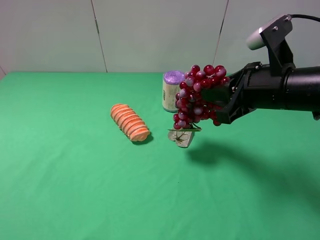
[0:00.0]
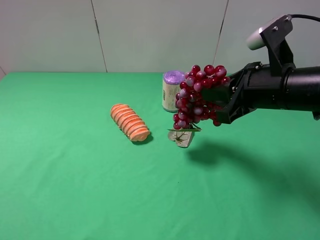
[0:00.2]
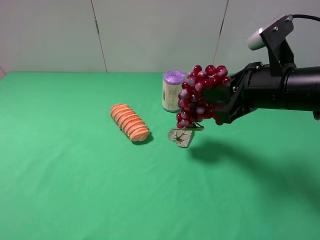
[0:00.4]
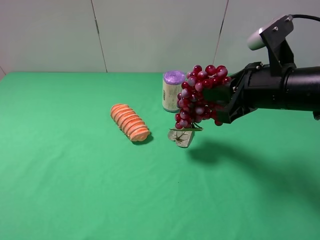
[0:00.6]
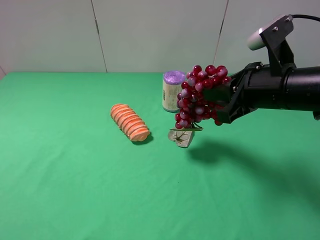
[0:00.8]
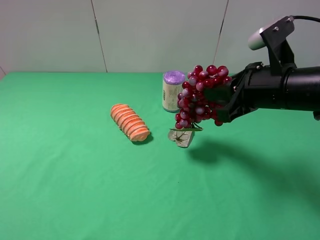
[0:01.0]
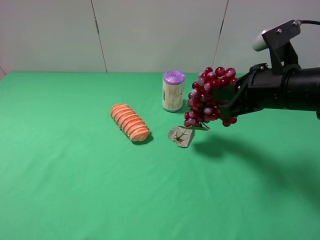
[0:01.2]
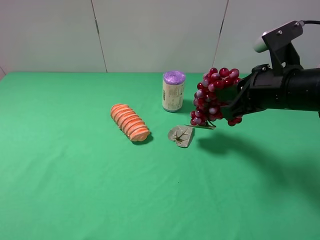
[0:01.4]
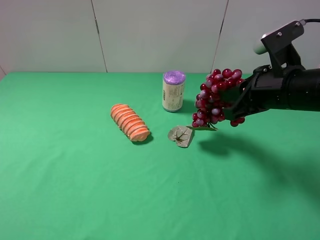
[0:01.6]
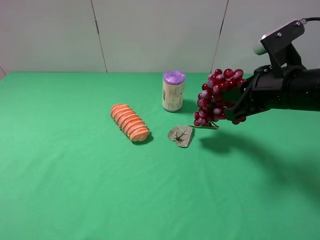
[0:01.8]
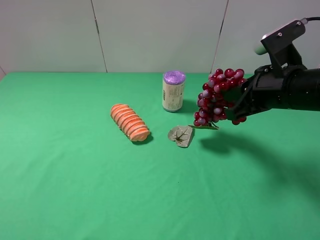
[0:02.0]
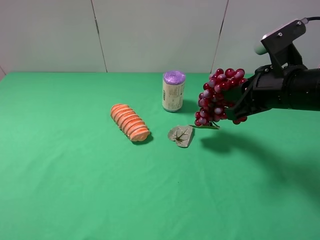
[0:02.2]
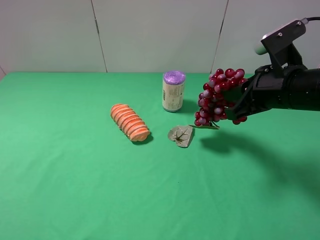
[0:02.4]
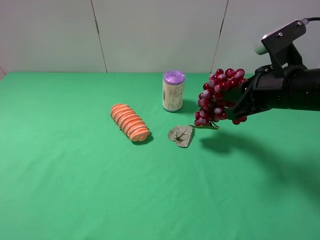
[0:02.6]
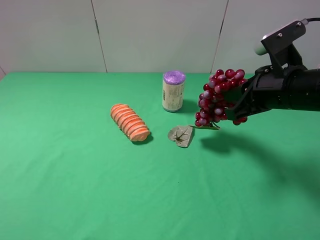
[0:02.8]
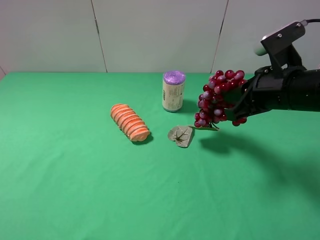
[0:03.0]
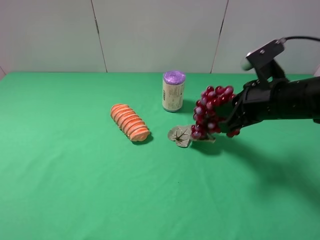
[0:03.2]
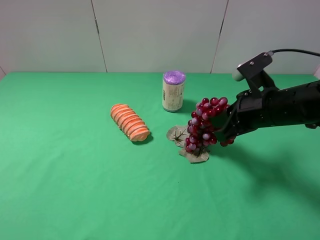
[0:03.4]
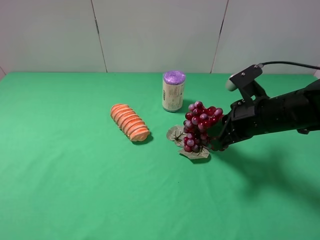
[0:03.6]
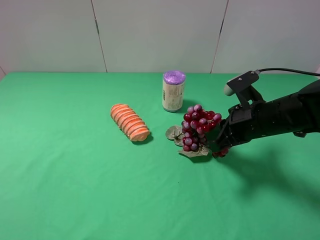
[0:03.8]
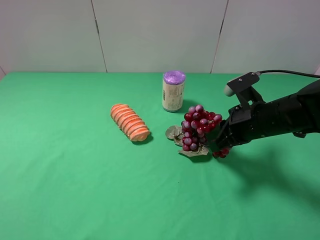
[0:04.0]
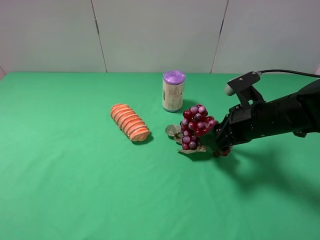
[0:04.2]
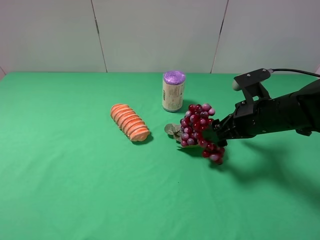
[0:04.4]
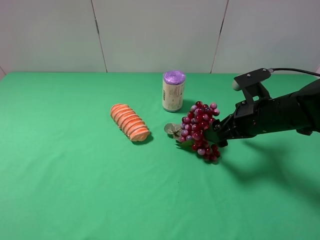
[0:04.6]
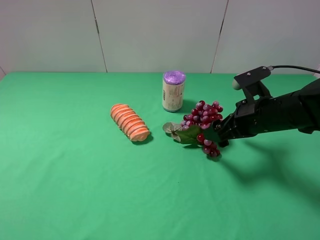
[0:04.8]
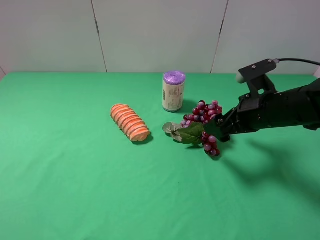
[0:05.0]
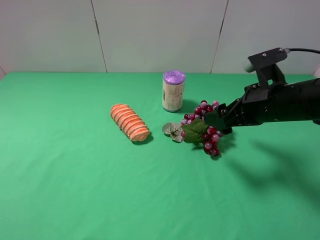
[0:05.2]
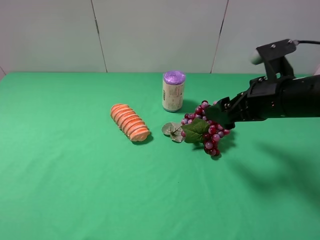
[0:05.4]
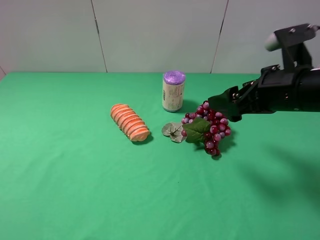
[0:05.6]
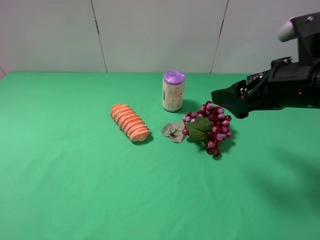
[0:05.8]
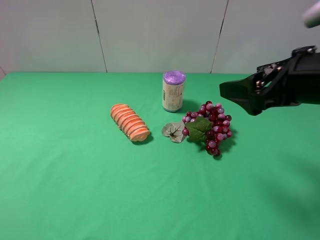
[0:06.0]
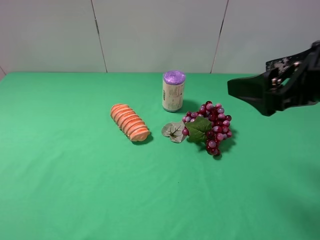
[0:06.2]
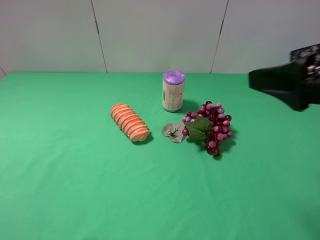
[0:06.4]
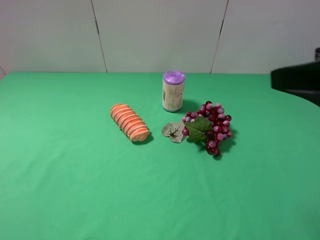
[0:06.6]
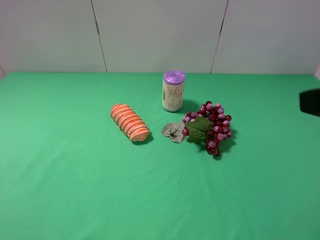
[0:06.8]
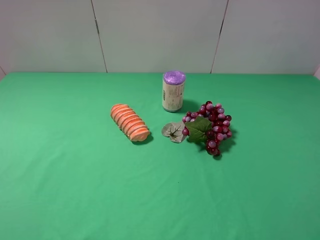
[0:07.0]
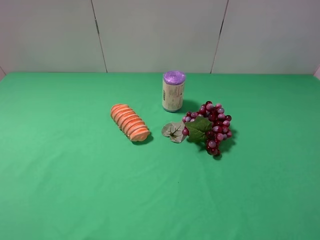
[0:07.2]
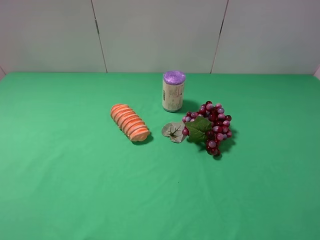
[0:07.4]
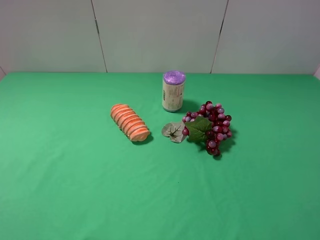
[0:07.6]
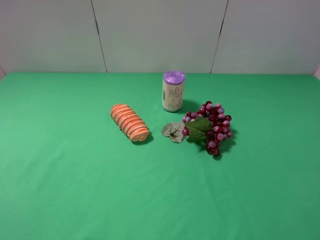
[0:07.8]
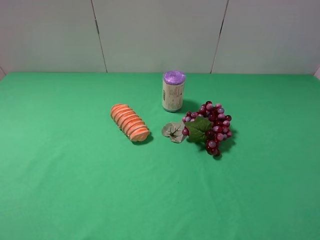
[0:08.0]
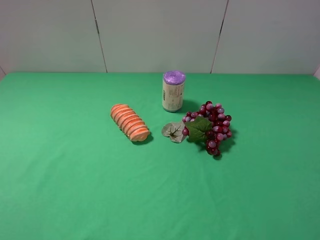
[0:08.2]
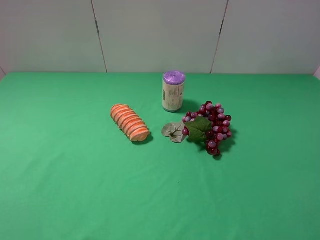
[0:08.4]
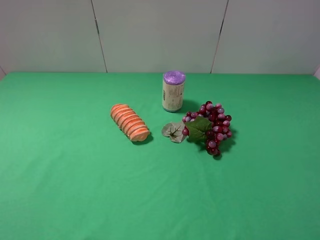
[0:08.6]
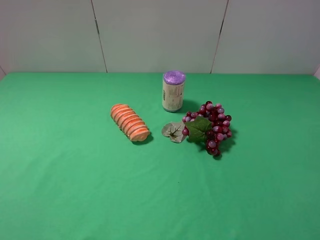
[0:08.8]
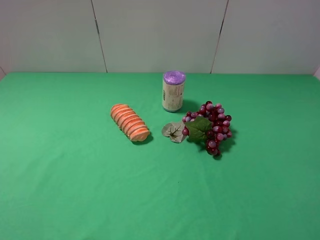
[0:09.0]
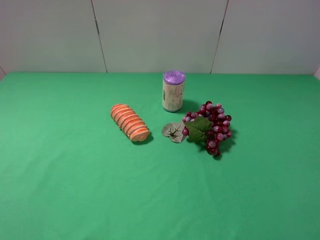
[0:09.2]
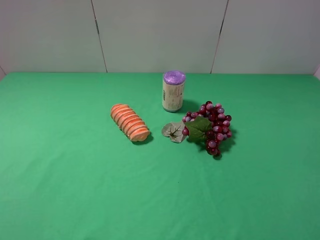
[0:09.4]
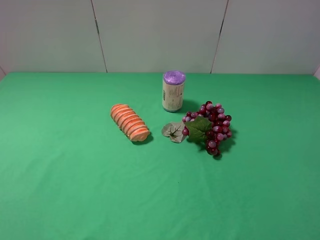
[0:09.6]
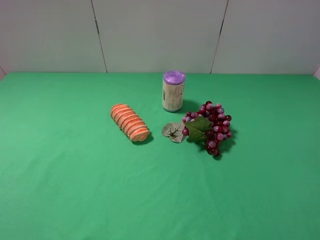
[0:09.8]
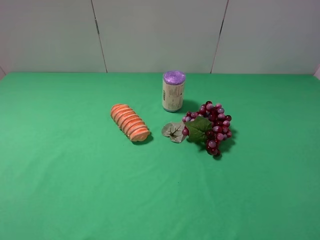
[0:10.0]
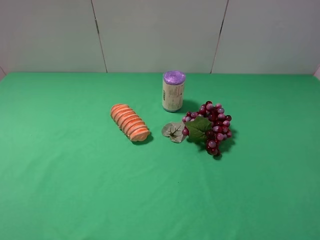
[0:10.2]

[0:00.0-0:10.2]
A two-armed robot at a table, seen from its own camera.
Task of the whole recording: use the left gripper to pick up the item and transfer it from the left gripper to the right gripper.
Step, 0:00.0 to 0:05.4: The right gripper places grape on the right side of the table.
0:01.4 to 0:03.0: The grippers make only small movements.
0:03.0 to 0:04.4: The right gripper moves downward, about 5 cm, and opens up.
0:04.4 to 0:05.8: The right gripper is displaced upward by about 10 cm.
0:05.8 to 0:07.2: The right gripper shifts some 20 cm backward, upward and to the right.
0:08.8 to 0:10.2: Both grippers stay put.
